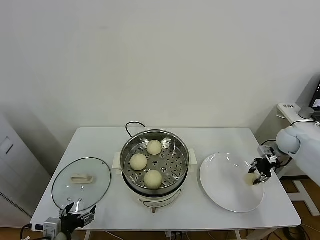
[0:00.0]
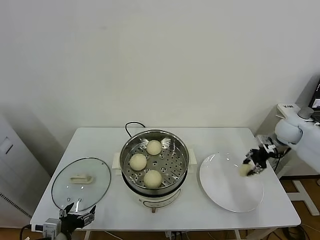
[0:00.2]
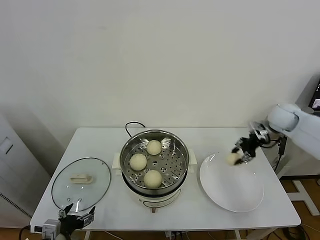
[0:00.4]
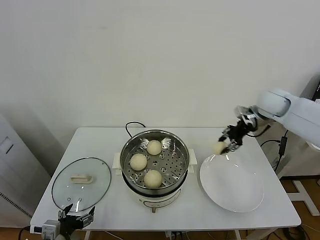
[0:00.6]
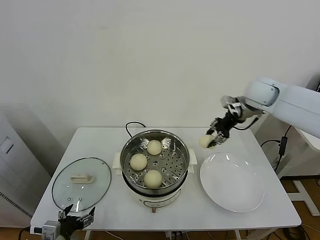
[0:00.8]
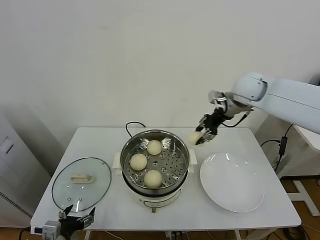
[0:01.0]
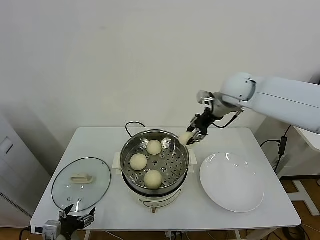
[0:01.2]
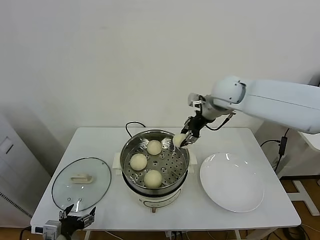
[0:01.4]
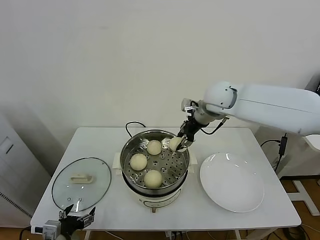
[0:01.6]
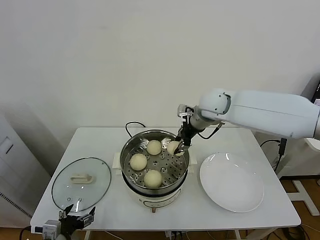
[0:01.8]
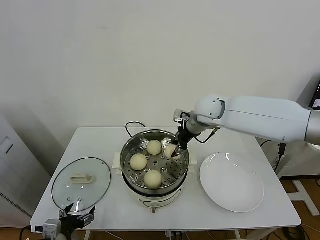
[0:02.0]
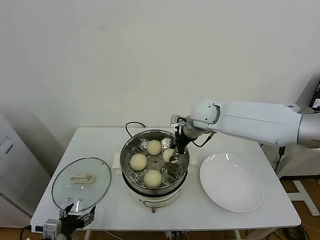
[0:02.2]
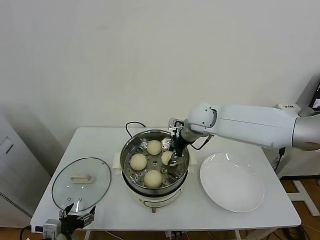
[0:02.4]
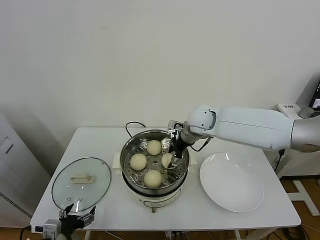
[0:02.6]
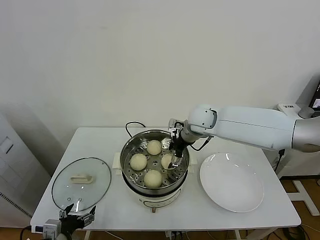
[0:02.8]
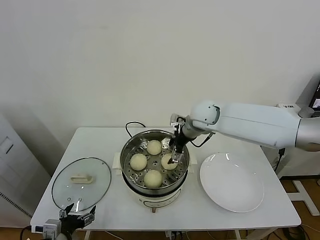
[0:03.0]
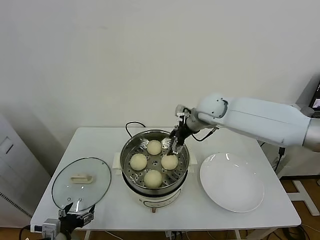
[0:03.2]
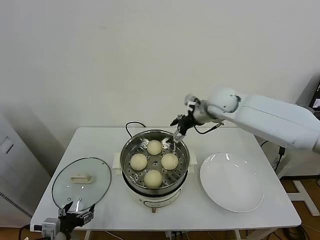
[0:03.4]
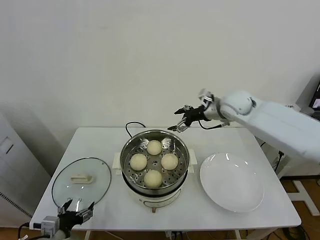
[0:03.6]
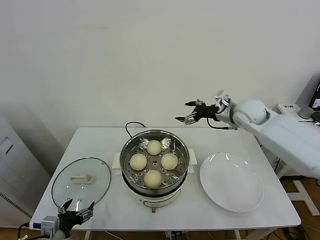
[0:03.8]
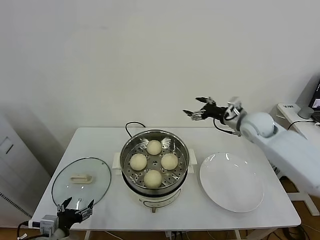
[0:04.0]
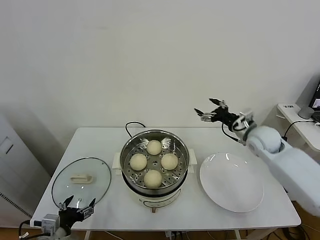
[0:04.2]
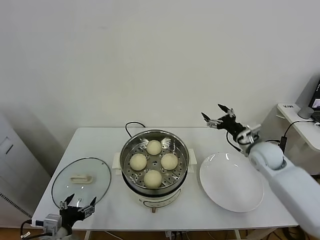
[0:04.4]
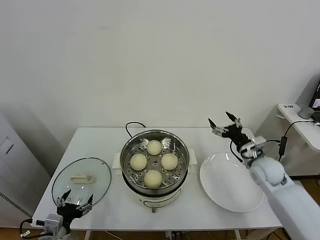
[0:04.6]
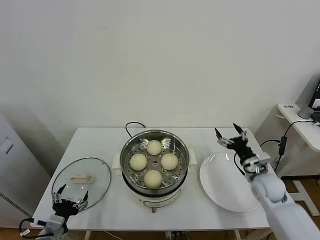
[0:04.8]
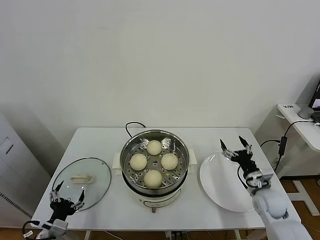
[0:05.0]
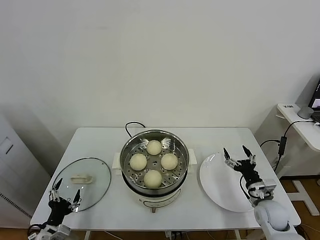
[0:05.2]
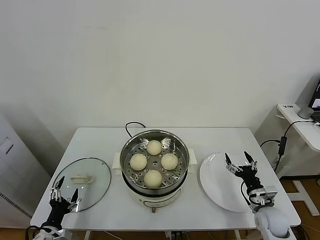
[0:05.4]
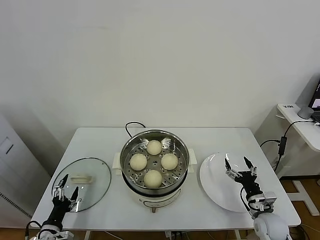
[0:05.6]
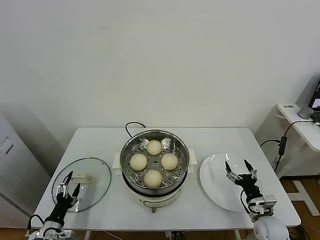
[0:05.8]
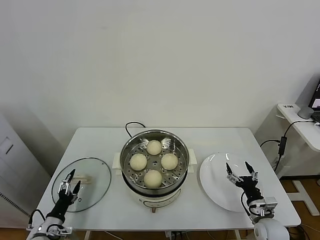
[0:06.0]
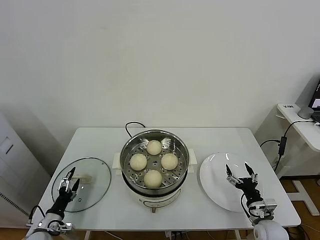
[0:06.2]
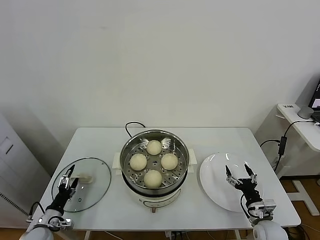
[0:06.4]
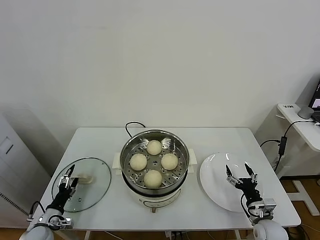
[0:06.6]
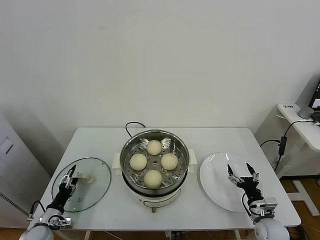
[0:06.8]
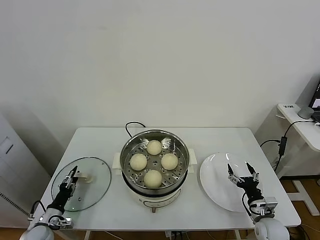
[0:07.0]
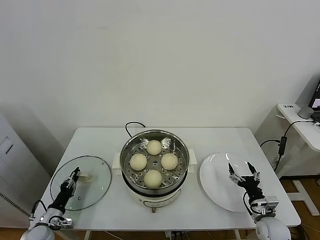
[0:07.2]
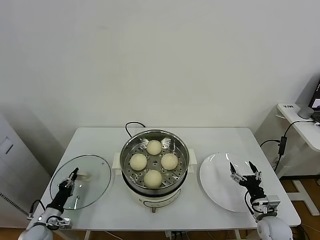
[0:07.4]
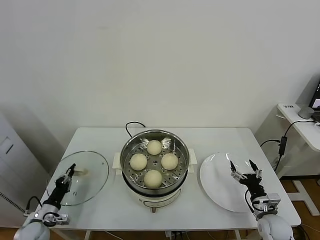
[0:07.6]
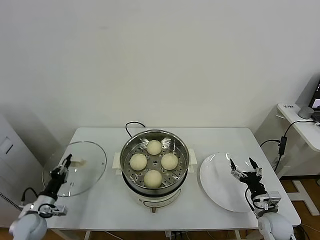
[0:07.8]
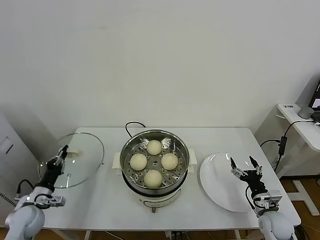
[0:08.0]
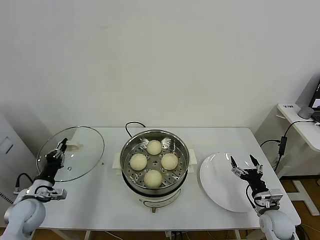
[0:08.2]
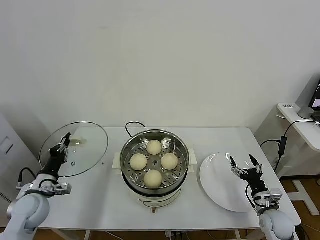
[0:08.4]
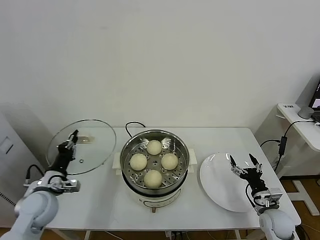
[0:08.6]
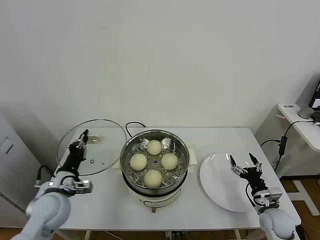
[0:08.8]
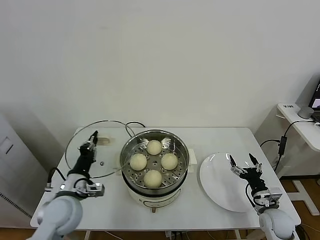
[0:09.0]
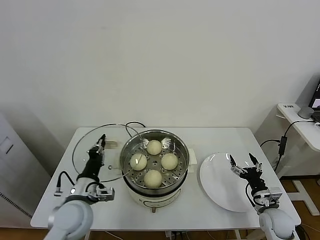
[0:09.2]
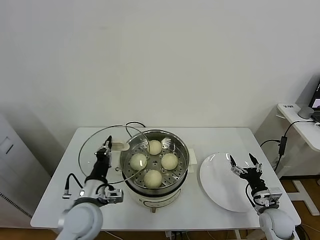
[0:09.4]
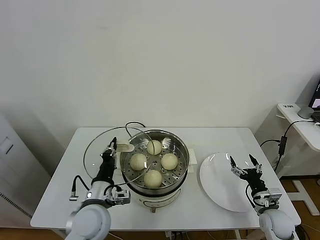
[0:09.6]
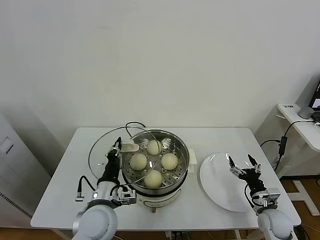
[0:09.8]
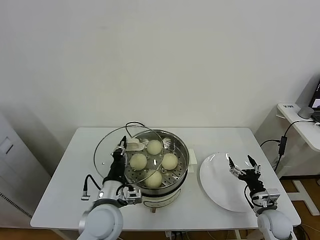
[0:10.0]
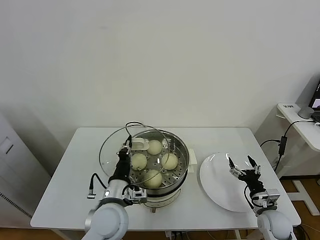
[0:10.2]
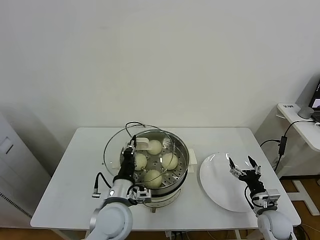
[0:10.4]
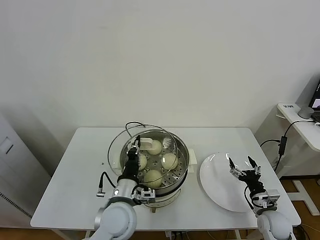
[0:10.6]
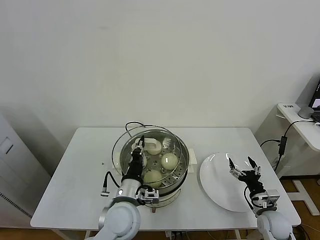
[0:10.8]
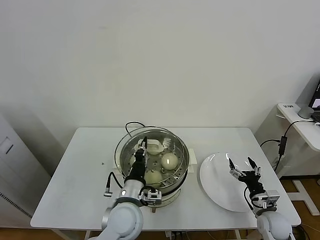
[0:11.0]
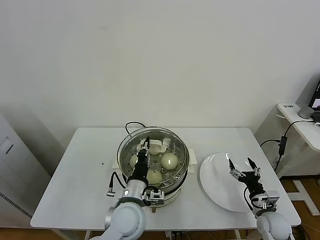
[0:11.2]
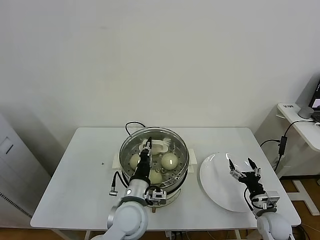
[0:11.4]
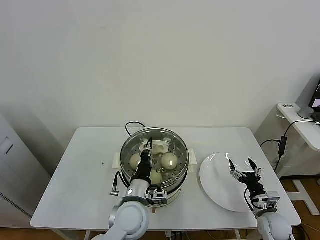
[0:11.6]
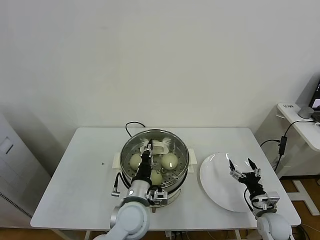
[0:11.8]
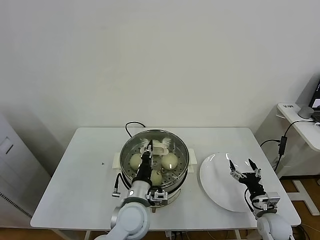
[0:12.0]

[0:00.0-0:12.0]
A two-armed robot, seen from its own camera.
Task of the whole recording: take steamed baozi put them in steamer.
Step, 0:00.0 to 0:03.0: Place the baozi on the steamer with right gripper.
Step, 0:03.2 to 0:07.4: Grasp the pot lid with left gripper.
0:00.0 to 0:01.6: The right gripper moves to the left and upward, approximately 35 cm.
0:01.6 to 0:03.0: The right gripper goes roughly 5 cm downward, and opens its fingers.
0:03.0 to 0:04.4: The right gripper goes some 25 cm to the right, downward and backward.
0:04.4 to 0:06.0: The right gripper shifts some 25 cm downward and backward. The left gripper travels downward and to the left by approximately 15 cm.
0:06.0 to 0:07.6: The left gripper ends up approximately 5 cm from where it was, and closes.
0:07.6 to 0:09.0: The left gripper heads upward and to the right, covering roughly 25 cm.
0:09.0 to 0:10.4: The left gripper moves to the right, roughly 15 cm.
0:10.4 to 0:12.0: The left gripper changes place by roughly 5 cm.

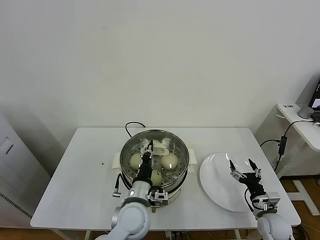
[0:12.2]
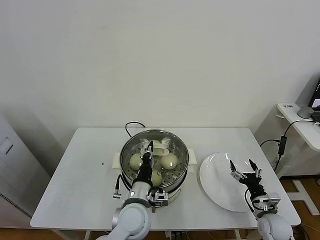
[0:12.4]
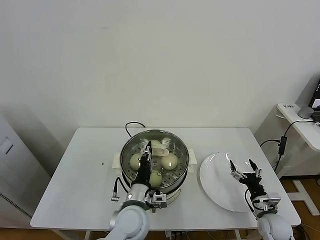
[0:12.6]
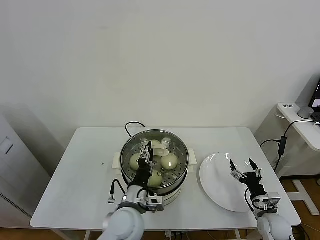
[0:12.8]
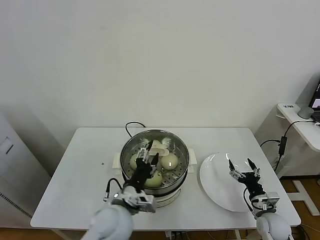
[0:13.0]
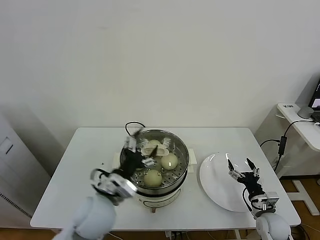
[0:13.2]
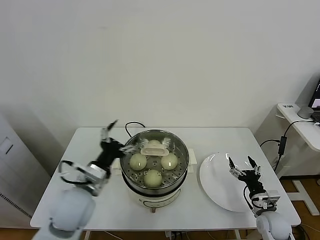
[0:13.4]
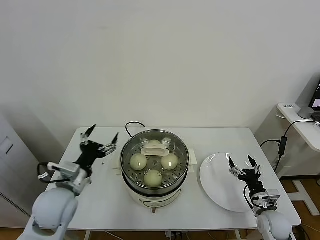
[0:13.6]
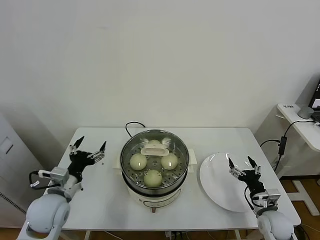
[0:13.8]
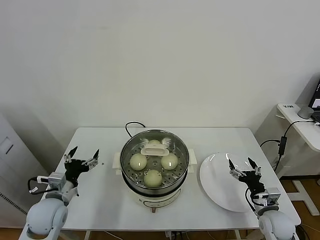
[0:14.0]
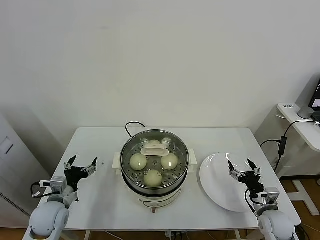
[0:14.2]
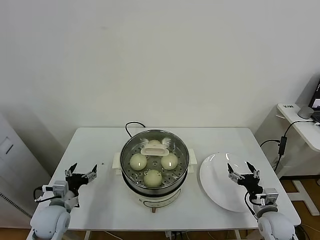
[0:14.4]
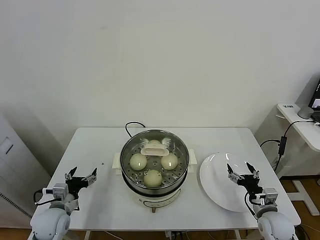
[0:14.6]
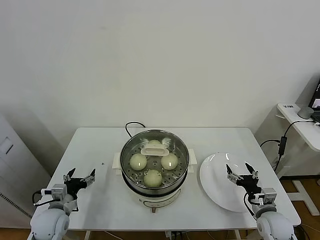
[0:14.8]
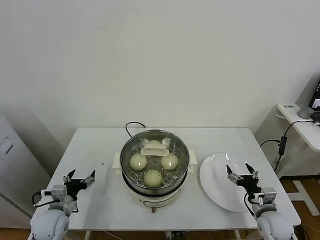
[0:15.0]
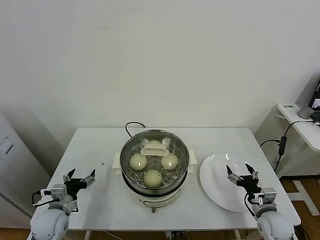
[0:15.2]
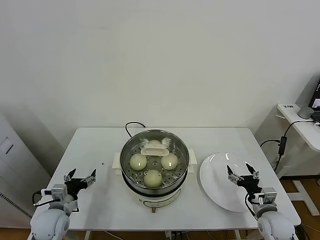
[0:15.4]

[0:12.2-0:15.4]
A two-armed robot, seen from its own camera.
Task of the whole recording: take steamed baozi put them in steamer.
0:12.2 to 0:13.8: The left gripper travels to the left by roughly 20 cm, and opens.
0:13.8 to 0:15.4: The left gripper travels downward and to the left by about 15 cm.

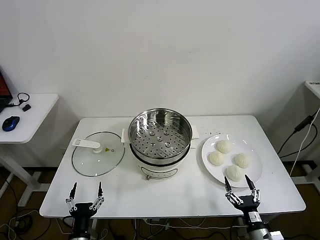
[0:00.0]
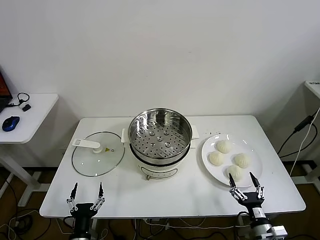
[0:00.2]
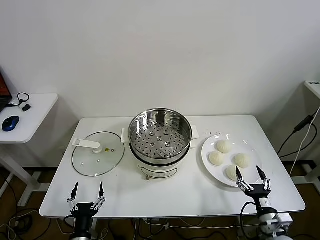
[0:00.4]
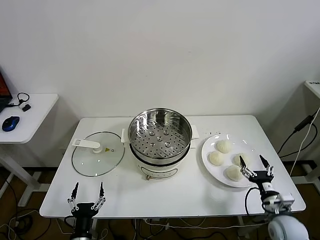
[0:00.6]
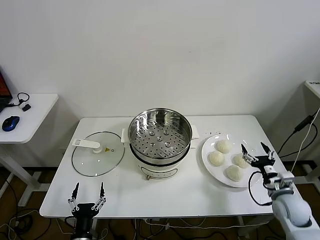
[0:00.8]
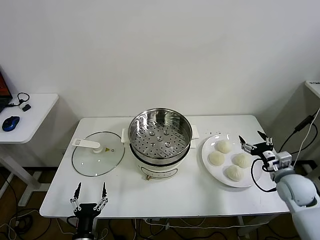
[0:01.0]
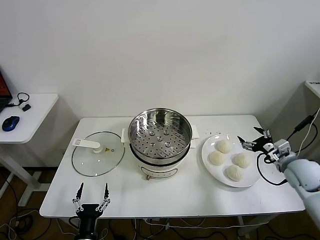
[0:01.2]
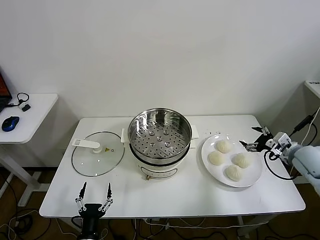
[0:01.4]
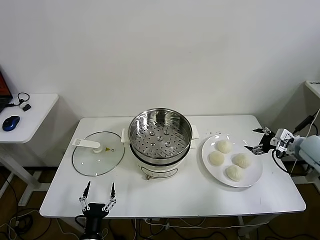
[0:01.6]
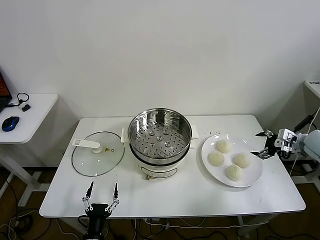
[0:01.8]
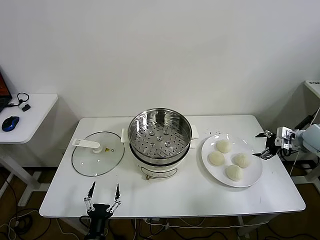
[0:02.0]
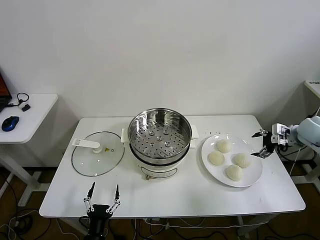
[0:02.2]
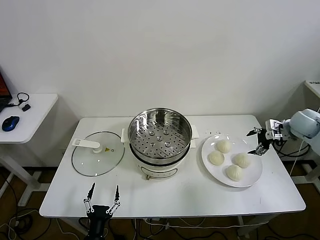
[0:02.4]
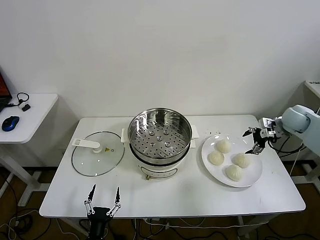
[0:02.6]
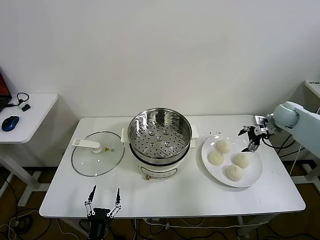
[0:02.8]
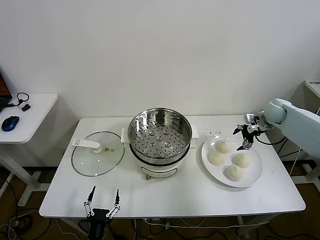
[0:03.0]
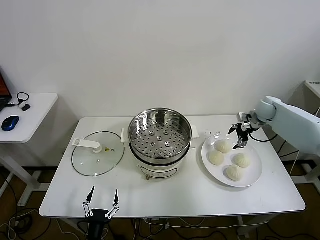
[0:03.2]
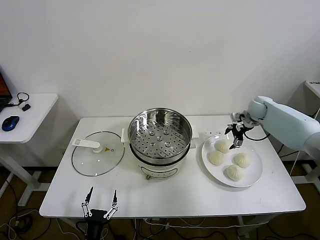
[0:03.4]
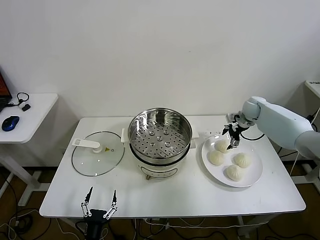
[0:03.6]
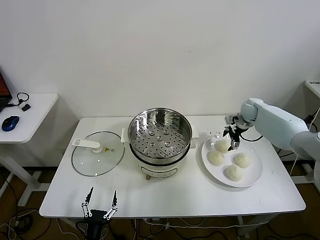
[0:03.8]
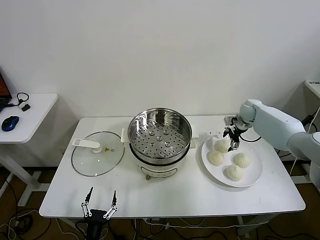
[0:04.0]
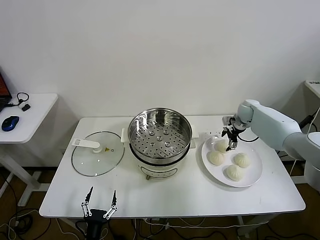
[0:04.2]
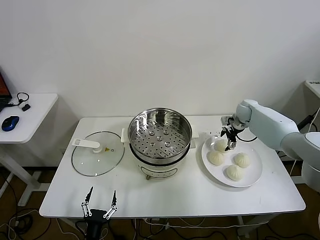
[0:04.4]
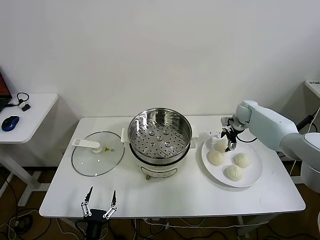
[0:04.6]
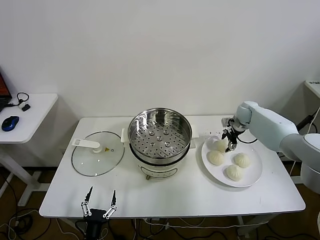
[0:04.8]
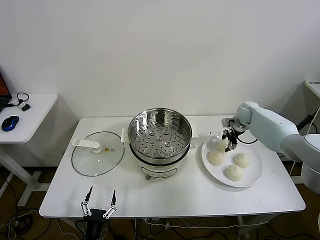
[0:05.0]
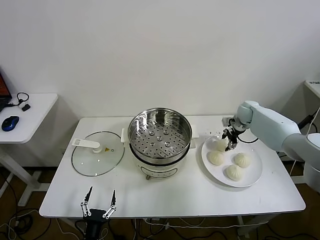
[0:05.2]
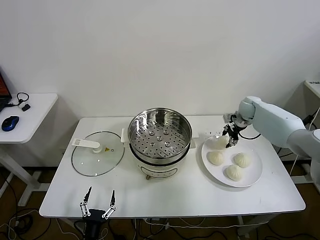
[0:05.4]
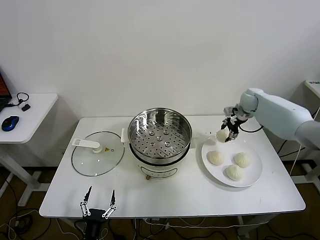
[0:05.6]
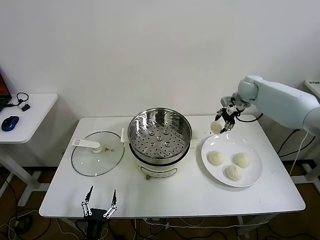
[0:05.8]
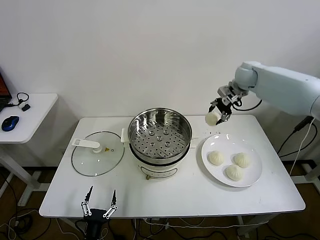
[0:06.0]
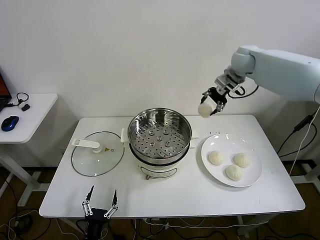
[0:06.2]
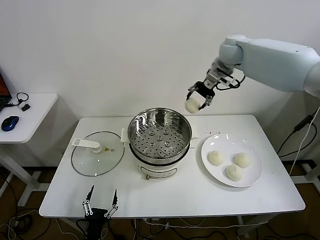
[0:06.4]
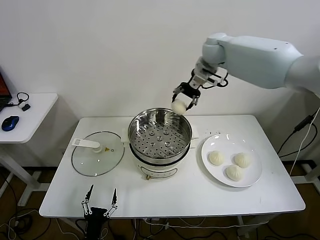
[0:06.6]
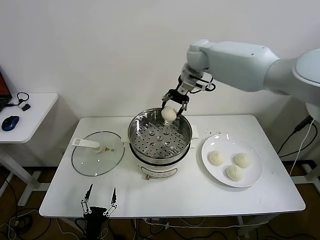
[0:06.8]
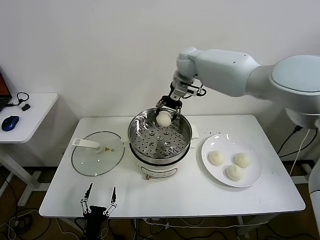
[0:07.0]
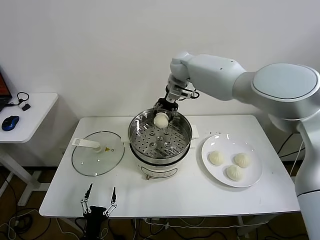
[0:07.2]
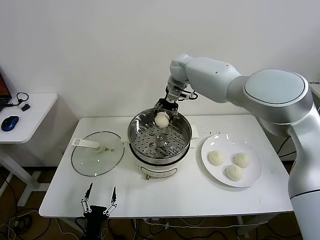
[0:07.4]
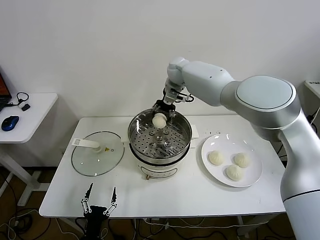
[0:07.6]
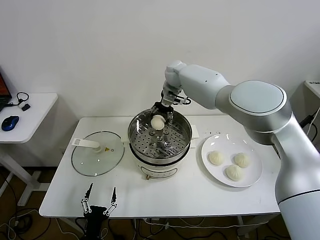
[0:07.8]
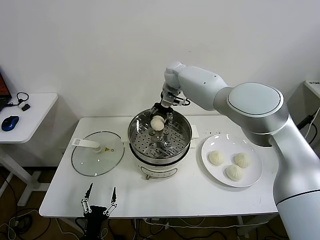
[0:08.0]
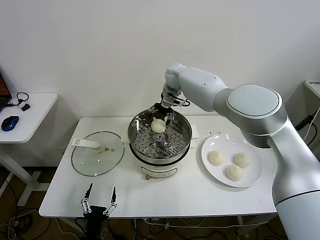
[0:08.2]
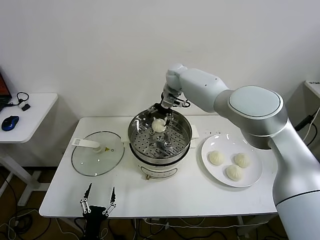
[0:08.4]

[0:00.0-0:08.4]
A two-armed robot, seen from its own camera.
Task of the whole recording: take steamed baozi put them in steamer.
Step, 0:00.0 to 0:05.0: Grasp the baozi in the plate with right gripper.
0:01.4 to 0:02.8: The right gripper is displaced forward by some 15 cm.
0:02.8 to 0:04.2: The right gripper is displaced to the left, forward and downward by some 10 cm.
0:04.2 to 0:05.6: The right gripper heads upward, covering about 10 cm, and closes its fingers.
0:05.6 to 0:07.0: The right gripper is displaced to the left and upward by roughly 30 cm.
0:07.0 to 0:08.4: The right gripper is displaced downward by some 5 cm, and opens up.
